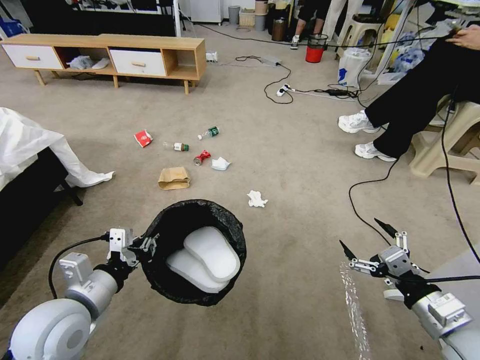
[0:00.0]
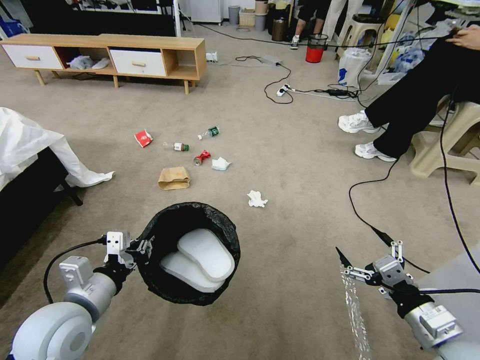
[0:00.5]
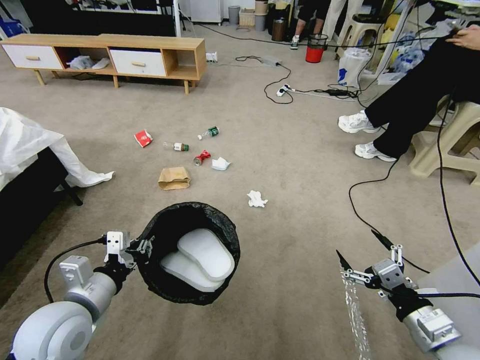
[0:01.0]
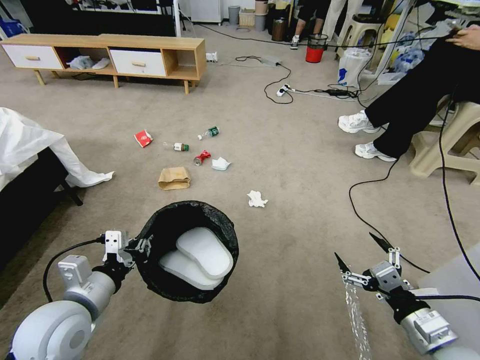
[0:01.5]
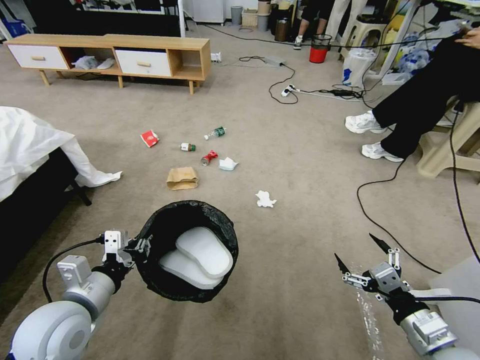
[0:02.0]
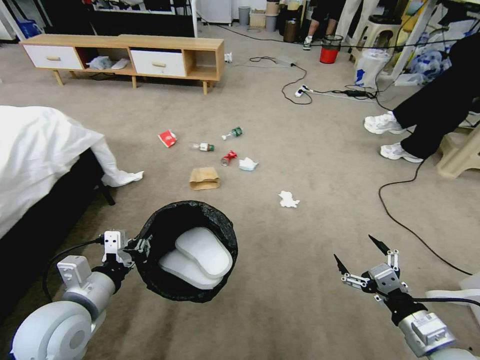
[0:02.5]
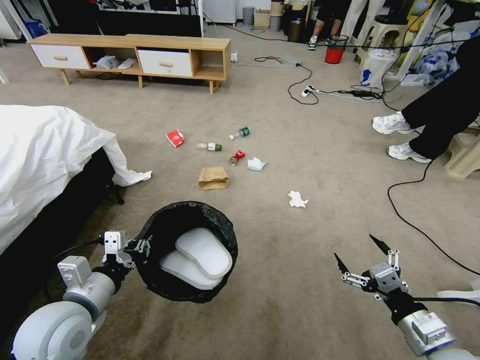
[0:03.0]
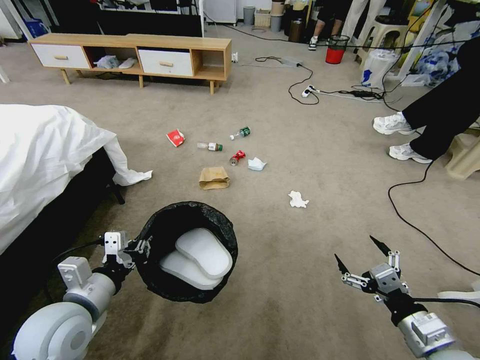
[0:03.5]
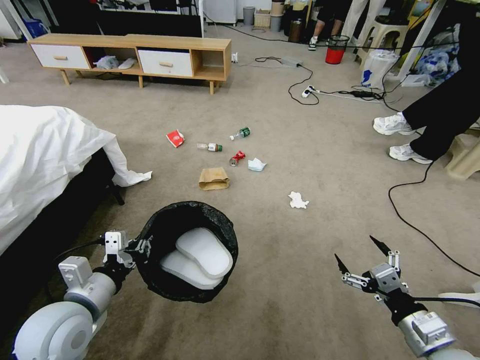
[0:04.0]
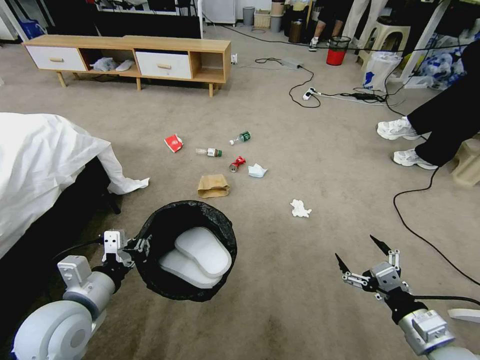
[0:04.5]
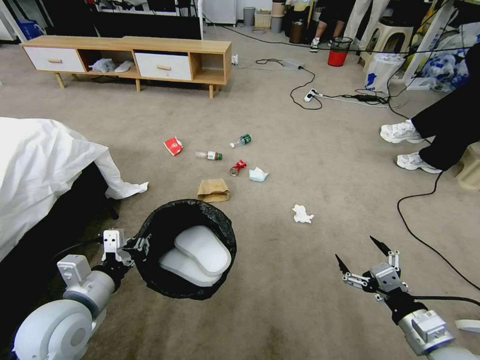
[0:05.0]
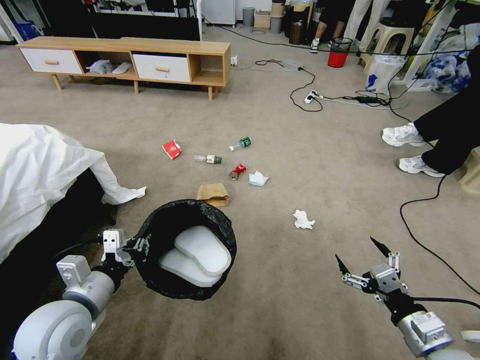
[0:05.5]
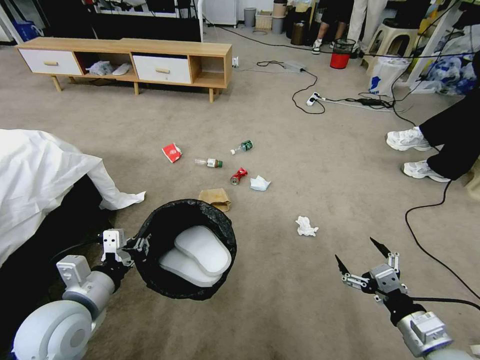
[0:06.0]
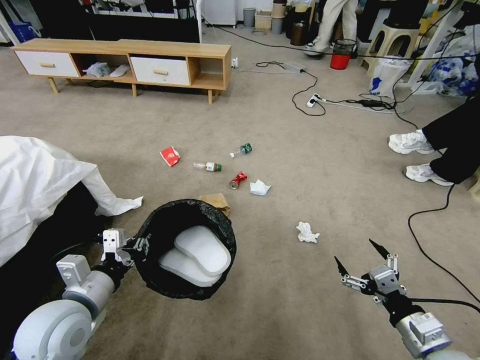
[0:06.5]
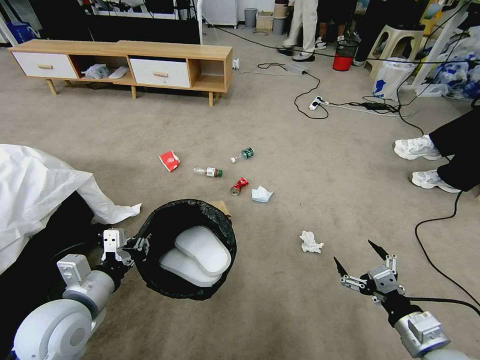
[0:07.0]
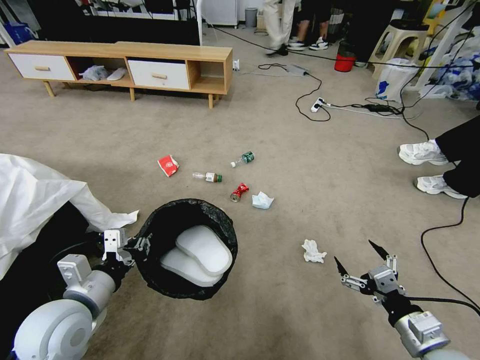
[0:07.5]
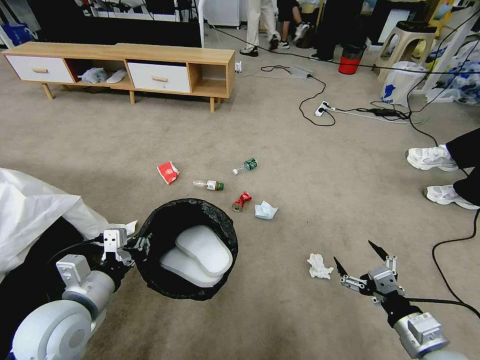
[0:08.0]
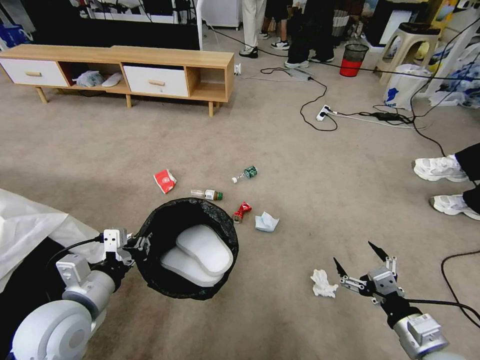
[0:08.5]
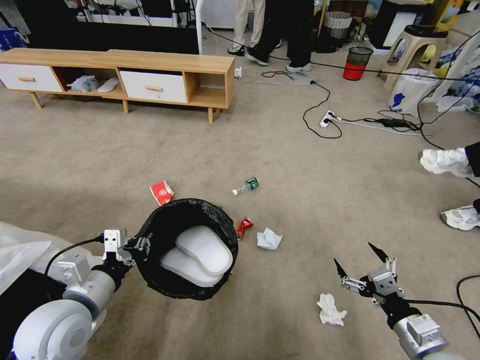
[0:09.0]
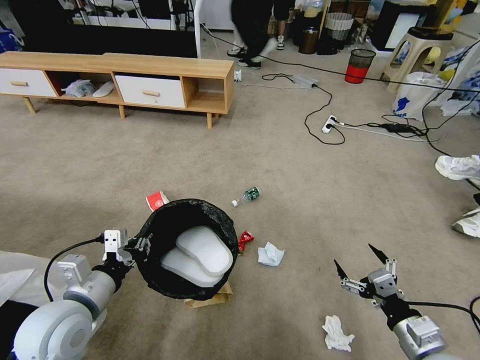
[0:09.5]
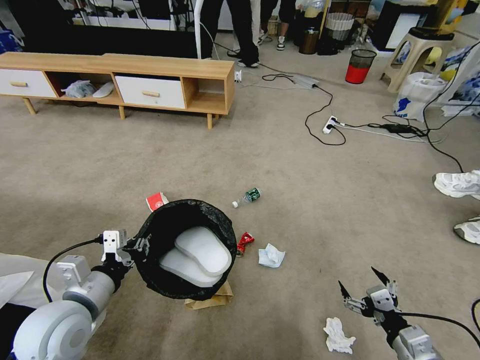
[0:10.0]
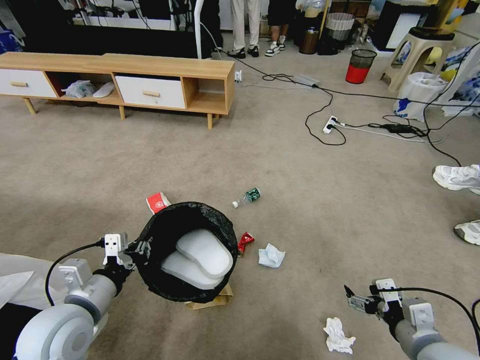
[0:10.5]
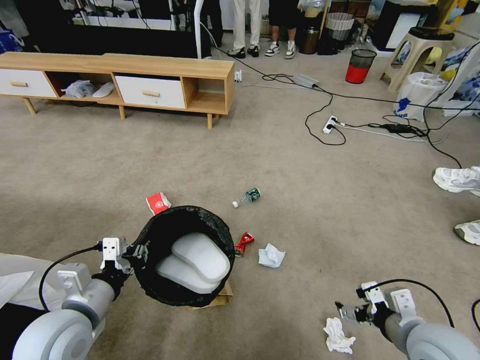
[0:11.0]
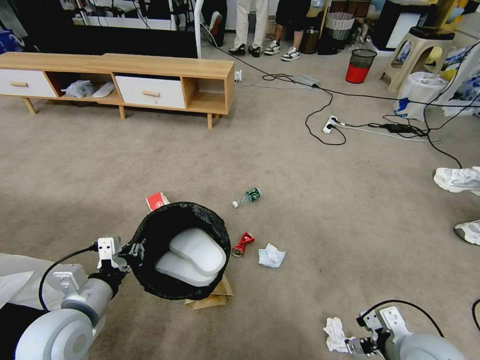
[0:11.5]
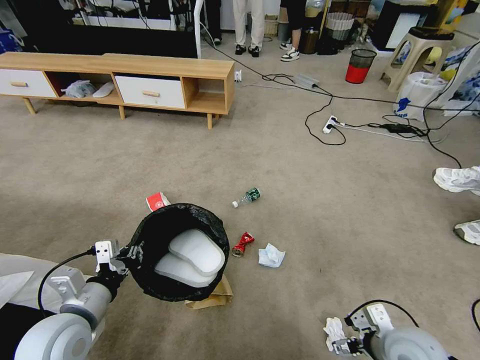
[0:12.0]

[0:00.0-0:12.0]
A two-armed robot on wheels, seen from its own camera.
Task of the whole recording: Pick up the trash bin and place the garbage on the floor into it.
0:10.0 to 0:12.0: The right gripper moves forward, about 5 cm.

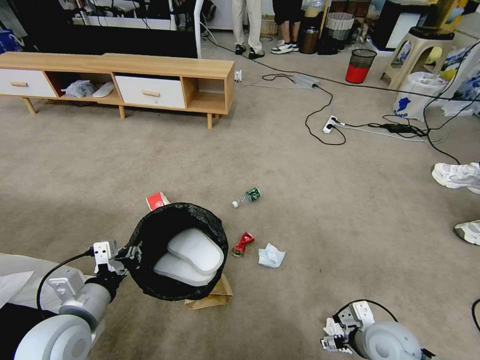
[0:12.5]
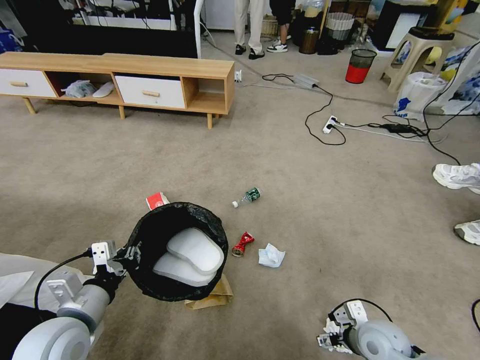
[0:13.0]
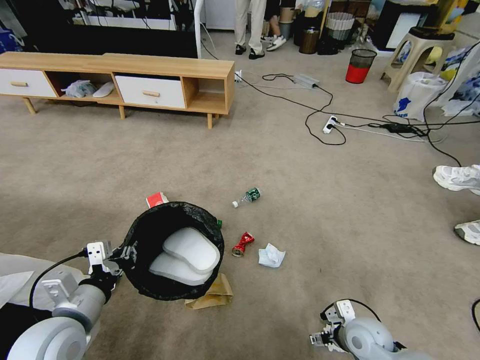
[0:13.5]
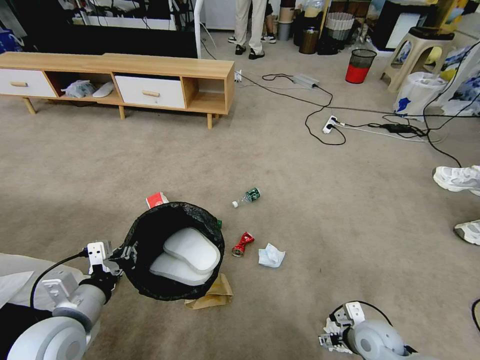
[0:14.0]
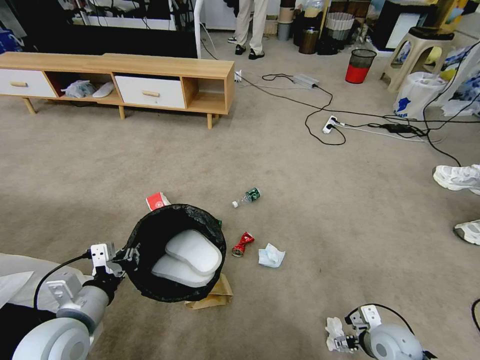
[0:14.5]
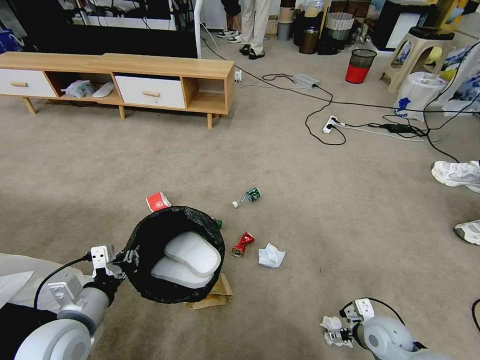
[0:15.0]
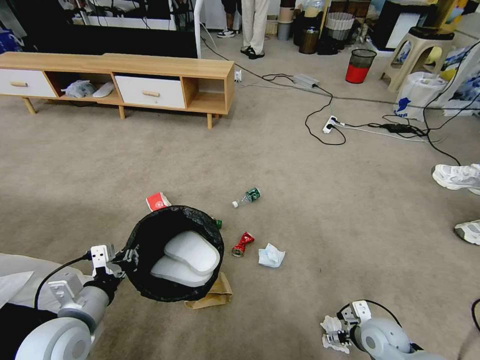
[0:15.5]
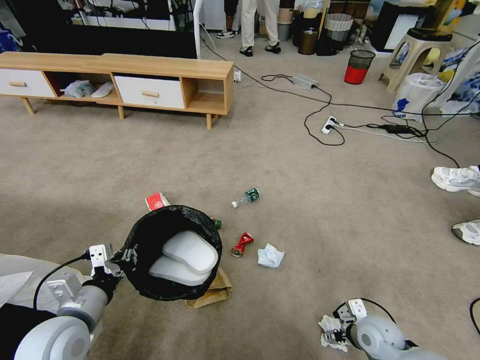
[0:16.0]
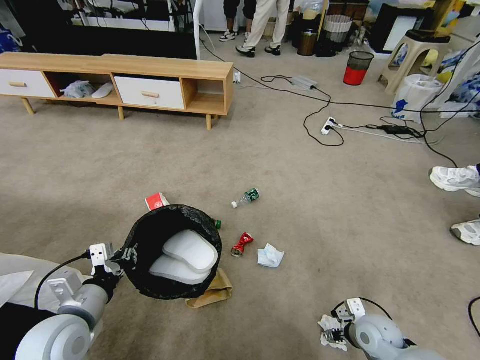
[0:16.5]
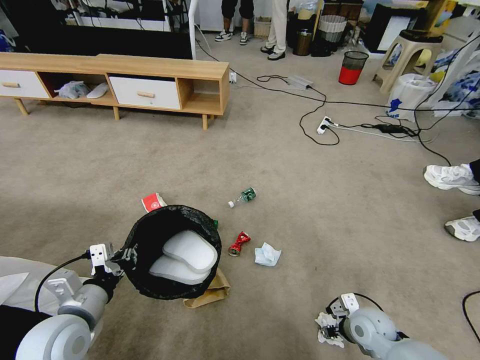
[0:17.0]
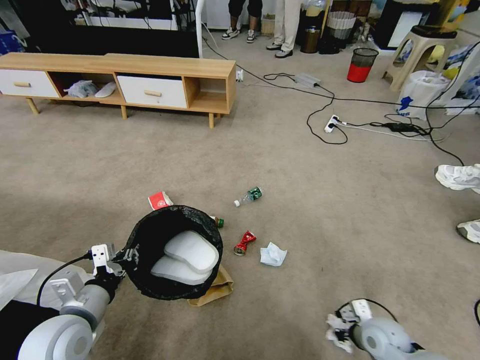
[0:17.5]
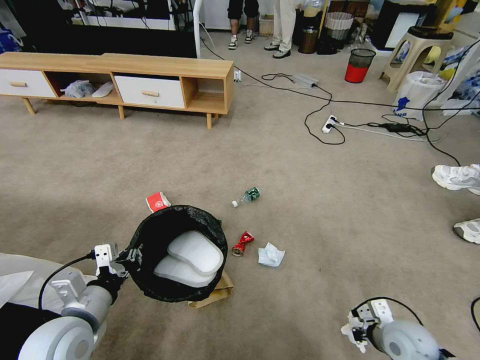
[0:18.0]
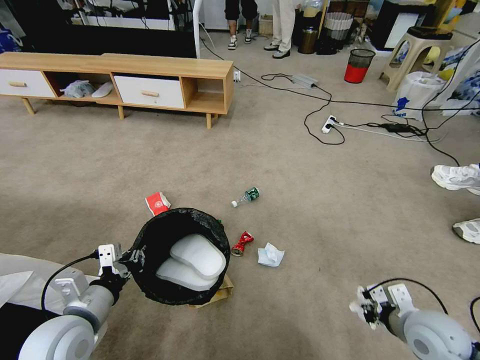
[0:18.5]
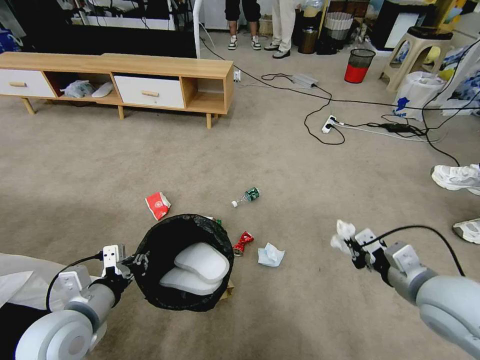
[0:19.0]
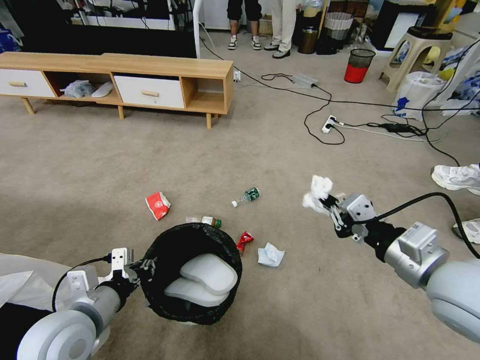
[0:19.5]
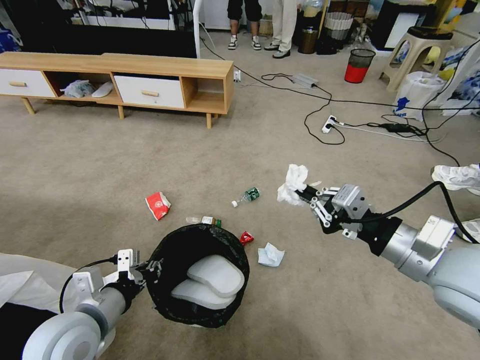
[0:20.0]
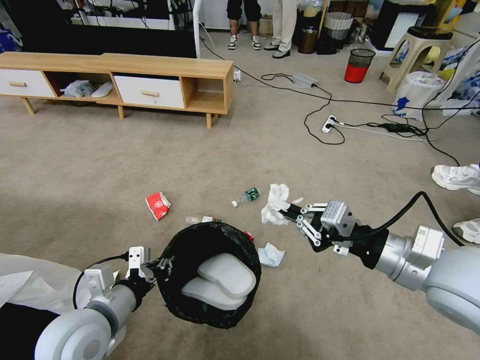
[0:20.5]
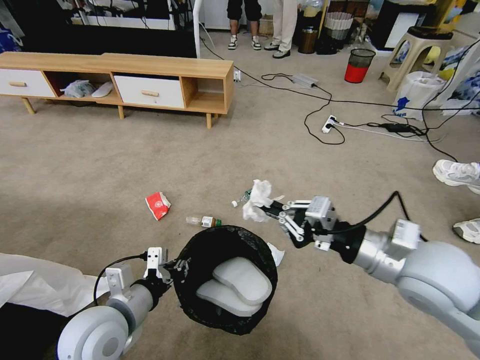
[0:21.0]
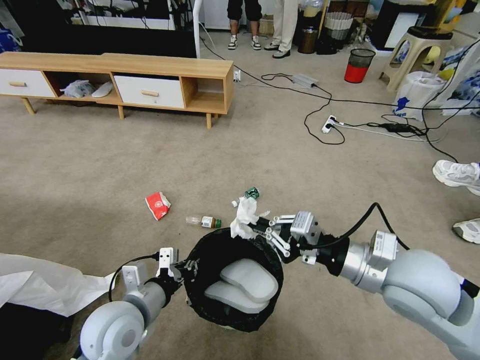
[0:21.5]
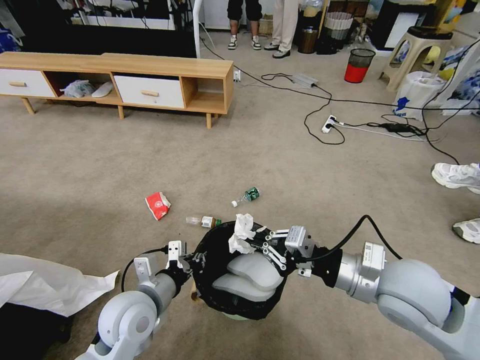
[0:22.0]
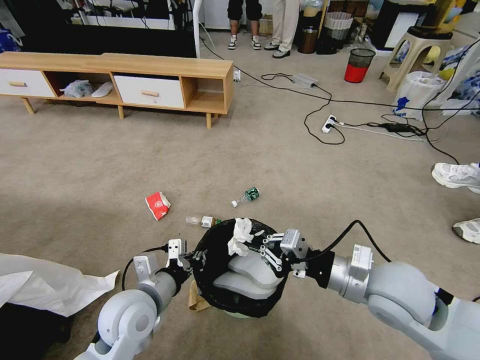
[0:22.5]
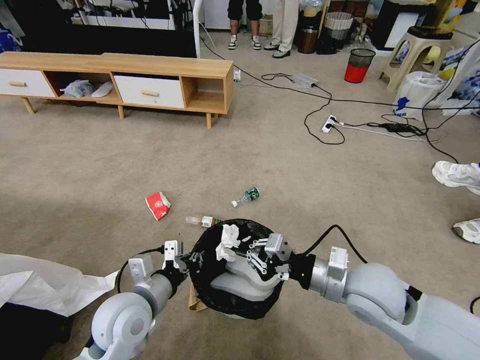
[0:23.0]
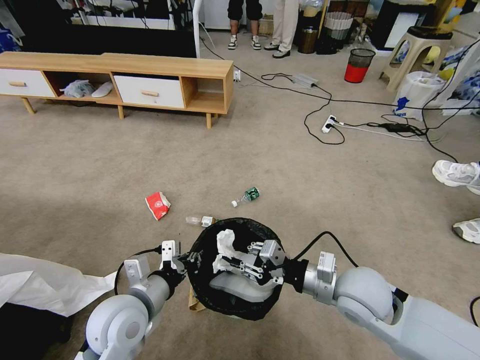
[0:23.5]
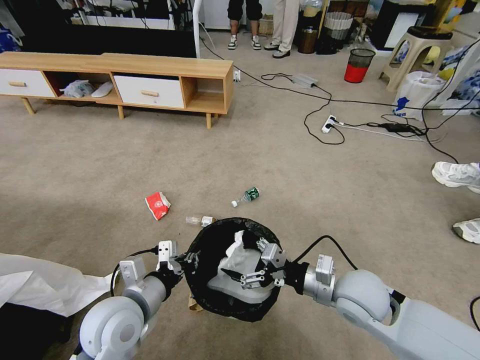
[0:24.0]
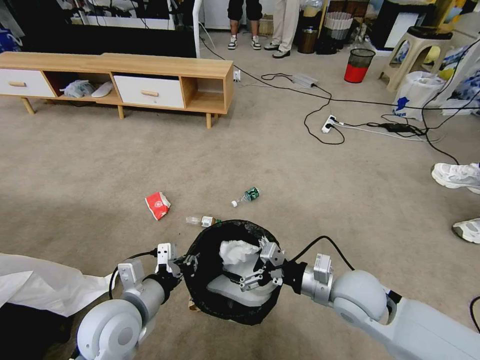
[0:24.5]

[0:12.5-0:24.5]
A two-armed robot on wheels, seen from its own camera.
Task of the whole recording: Pick up the trash bin and place the garbage on the floor into it.
0:12.5 to 0:14.5: The right gripper heads downward, covering about 5 cm.
0:14.5 to 0:16.5: The right gripper closes.
0:16.5 to 0:18.5: The right gripper goes about 15 cm upward, and closes its fingers.
0:18.5 to 0:20.5: The left gripper ends up approximately 5 cm from where it was; the right gripper travels upward by about 20 cm.
0:20.5 to 0:22.5: The right gripper shifts roughly 10 cm downward, while the left gripper moves to the right, about 5 cm.
0:22.5 to 0:24.5: The right gripper shifts roughly 10 cm downward, and opens up.

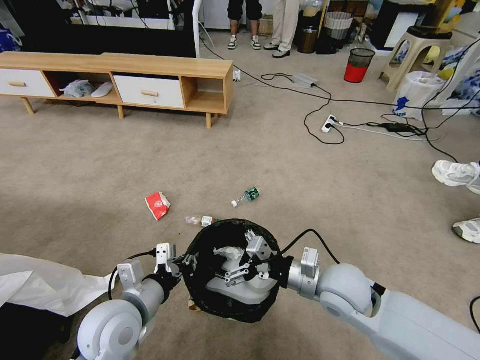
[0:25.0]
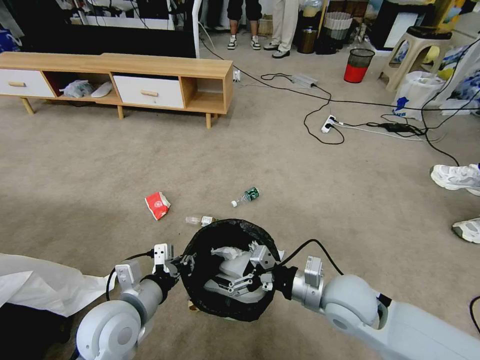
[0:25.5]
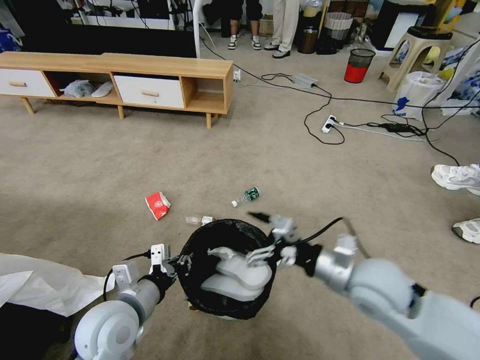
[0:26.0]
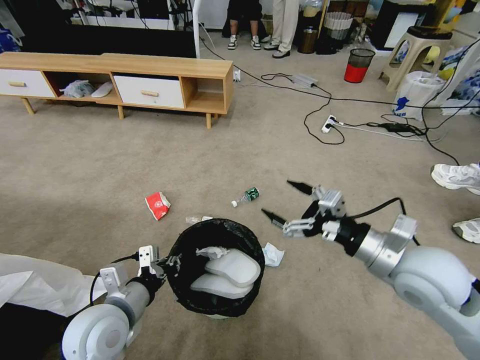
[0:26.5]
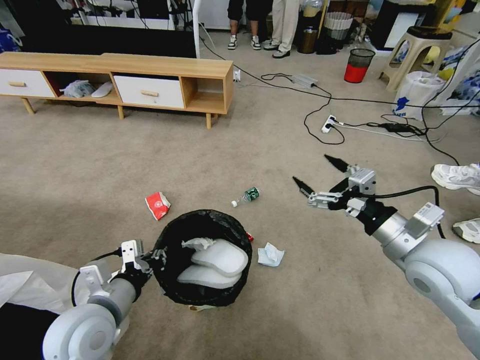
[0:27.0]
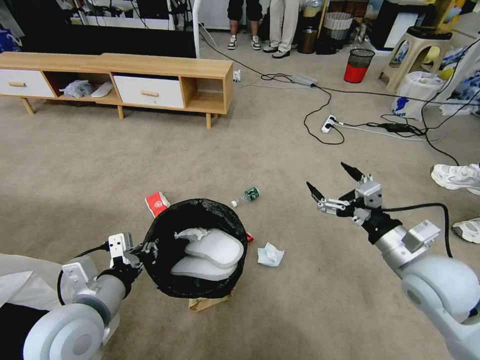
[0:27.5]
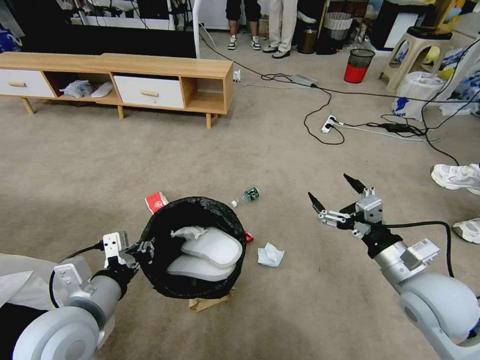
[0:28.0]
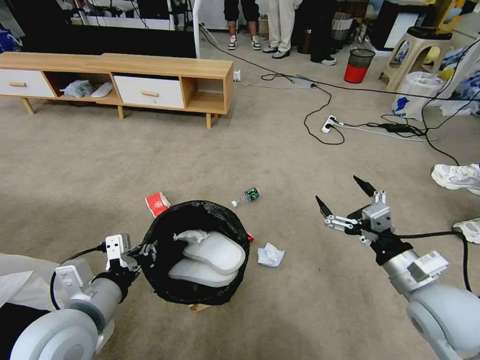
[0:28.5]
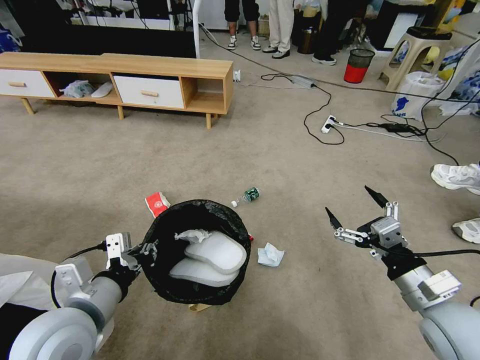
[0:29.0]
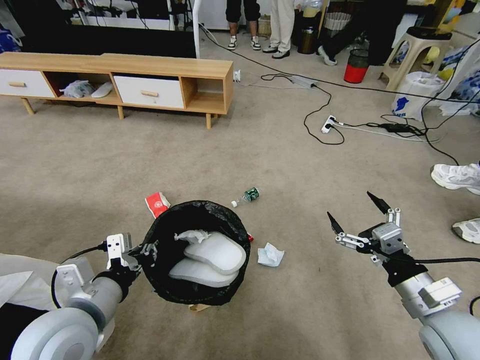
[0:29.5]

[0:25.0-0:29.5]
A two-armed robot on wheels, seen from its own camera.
Task of the whole recording: Pick up the trash bin and place the garbage on the floor into it.
0:25.0 to 0:27.0: The right gripper travels to the right and upward by approximately 15 cm.
0:27.0 to 0:29.5: The right gripper shifts roughly 10 cm backward and downward.
